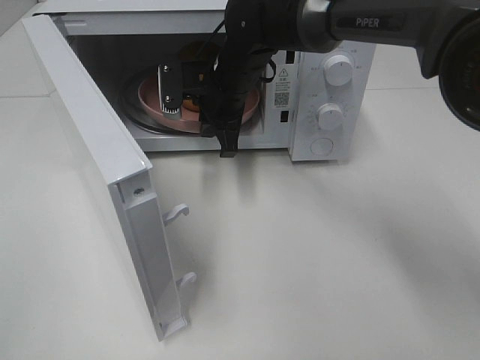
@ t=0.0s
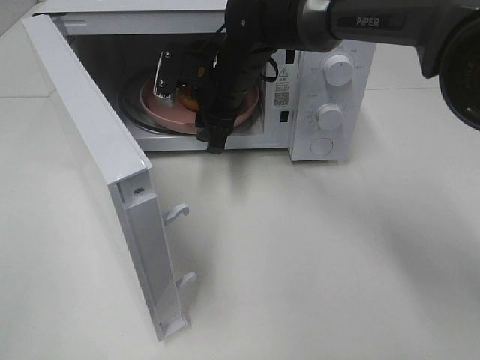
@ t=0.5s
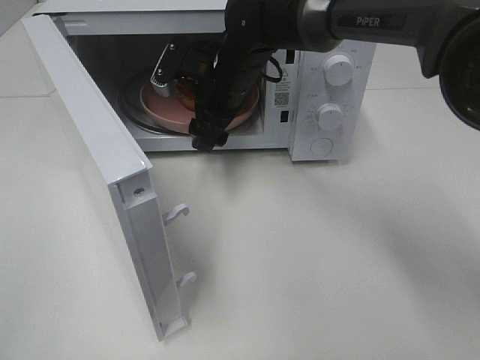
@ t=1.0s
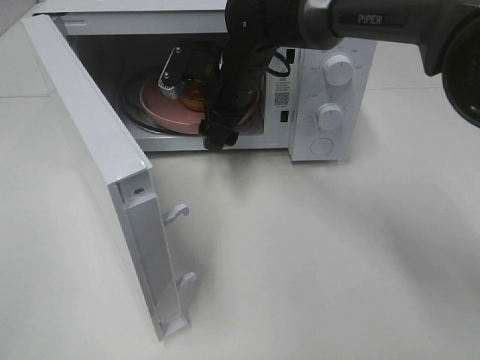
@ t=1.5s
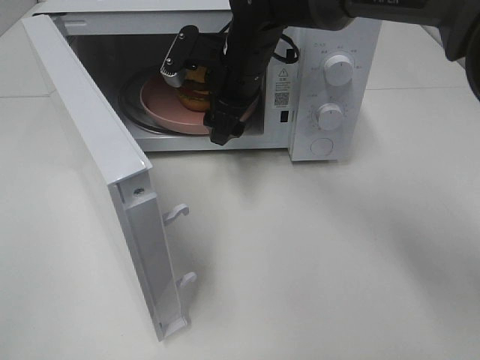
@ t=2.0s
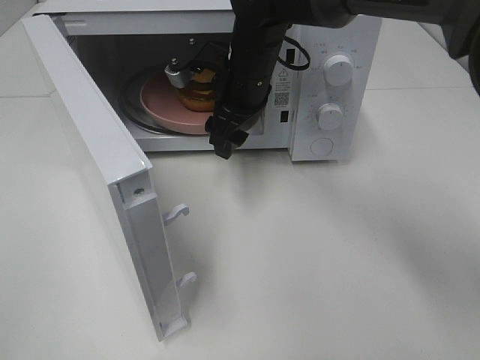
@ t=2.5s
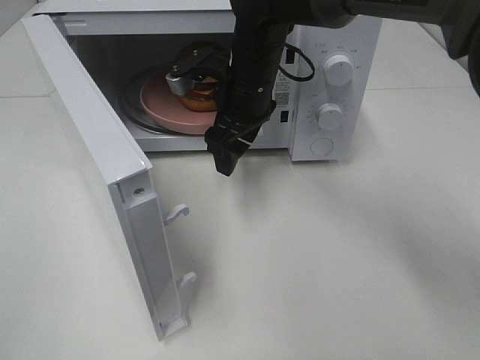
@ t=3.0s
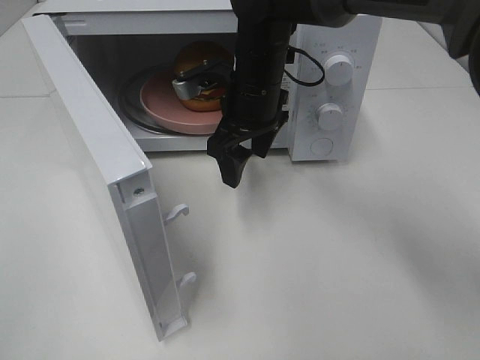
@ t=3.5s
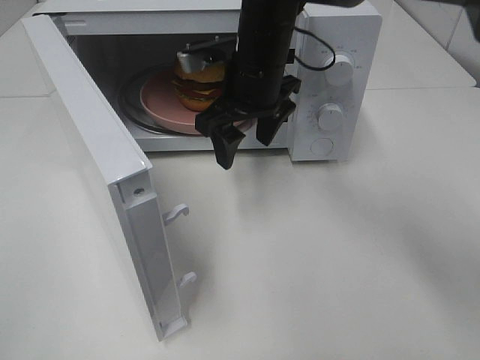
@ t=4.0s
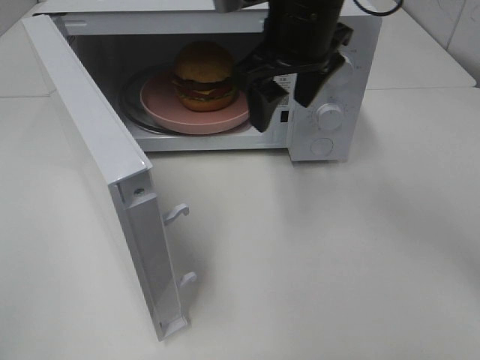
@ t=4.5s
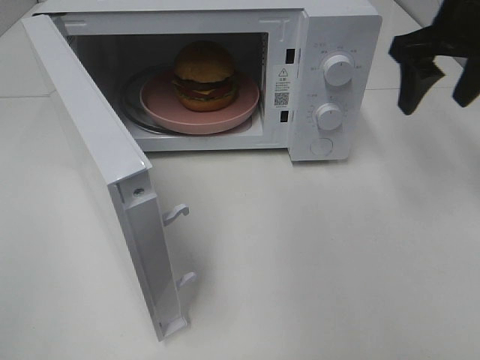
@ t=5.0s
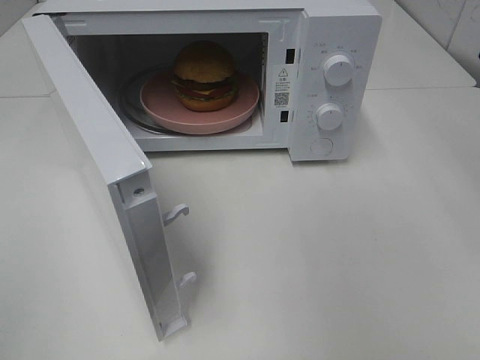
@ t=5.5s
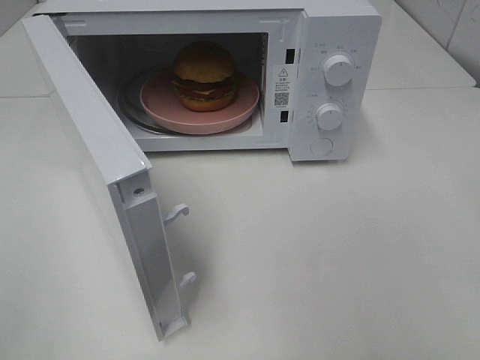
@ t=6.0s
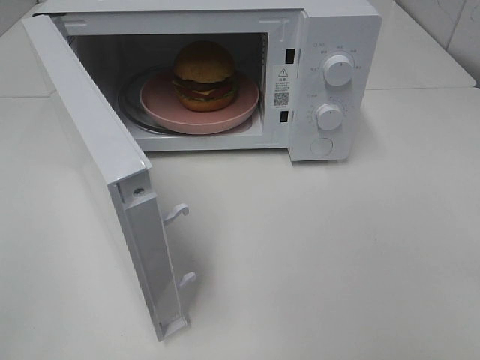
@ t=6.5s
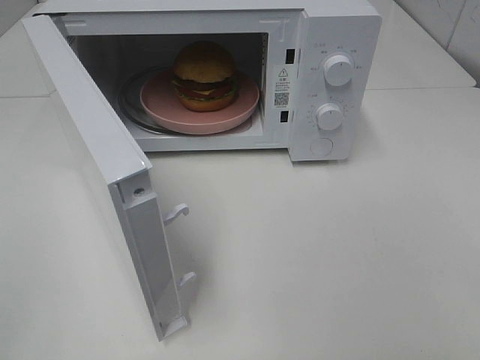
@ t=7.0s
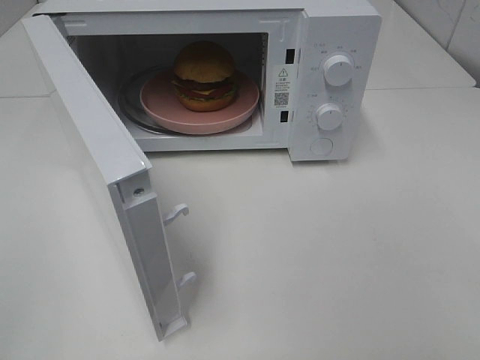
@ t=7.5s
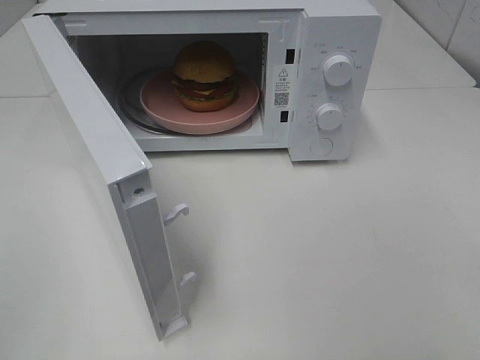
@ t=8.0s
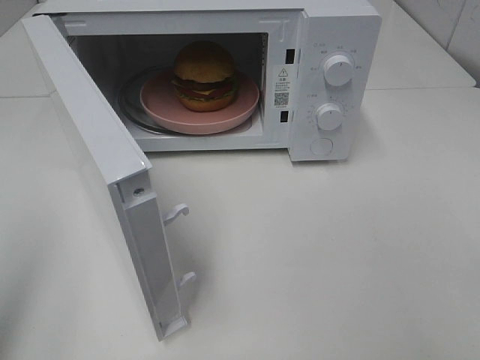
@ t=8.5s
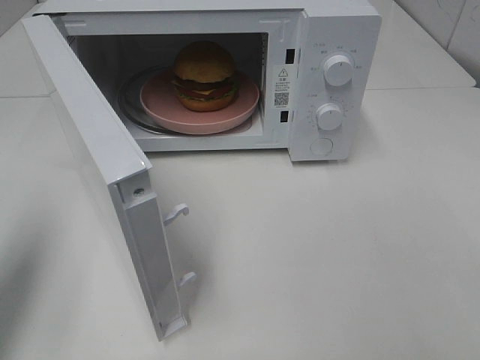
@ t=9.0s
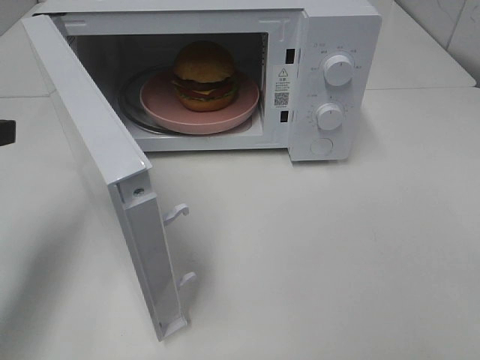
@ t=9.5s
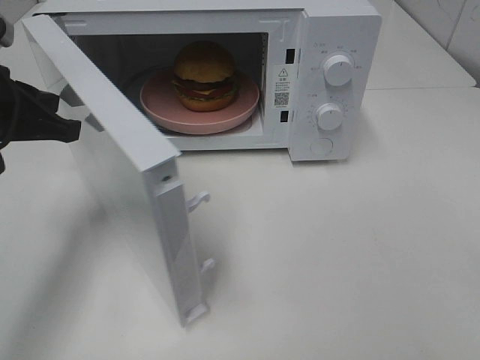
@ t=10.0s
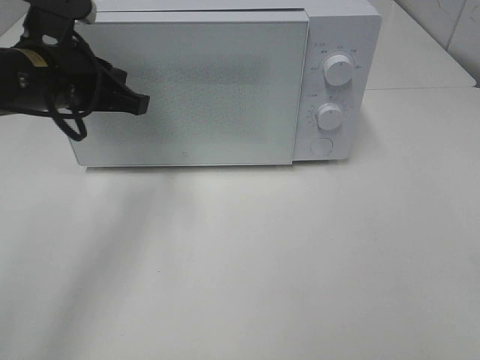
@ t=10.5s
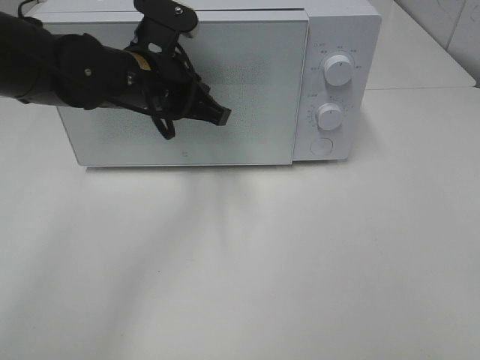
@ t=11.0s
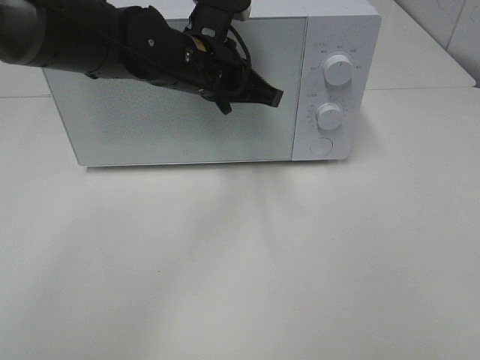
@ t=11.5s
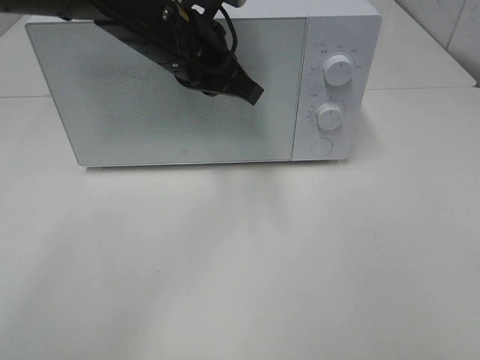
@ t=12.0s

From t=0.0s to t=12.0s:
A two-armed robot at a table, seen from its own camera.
Task of the whole recording: Heat the burger.
Step, from t=0.5s to t=11.5s: Left hand: close the microwave door.
From t=0.0s to t=2.0s: The right gripper opens its fingers.
From t=4.0s to t=6.0s: The right gripper goes some 35 cm to the right and backward.
From t=8.0s to t=10.0s: The left gripper is displaced forward by about 30 cm.
From t=10.0s to t=12.0s: The left gripper goes some 20 cm to the right and forward.

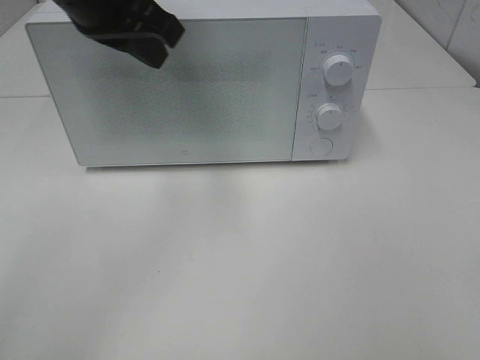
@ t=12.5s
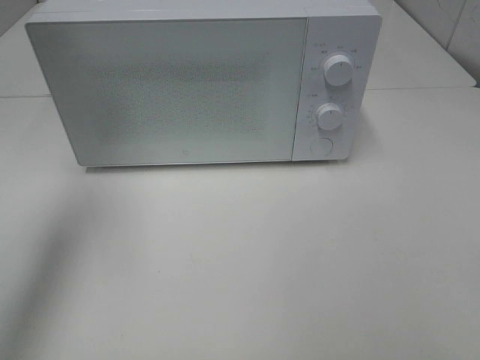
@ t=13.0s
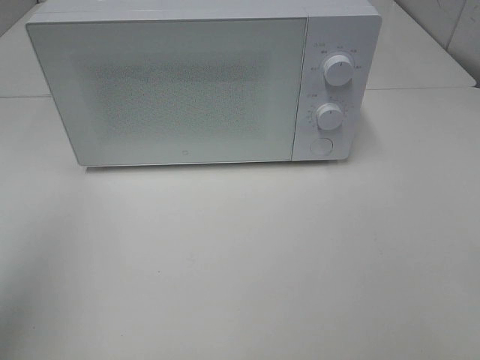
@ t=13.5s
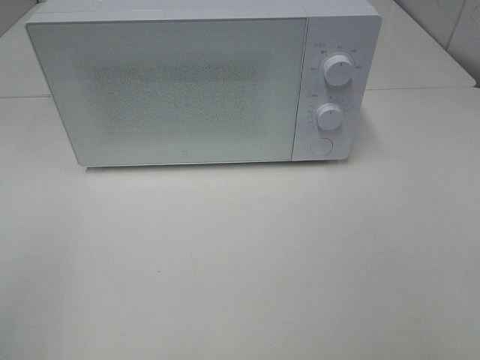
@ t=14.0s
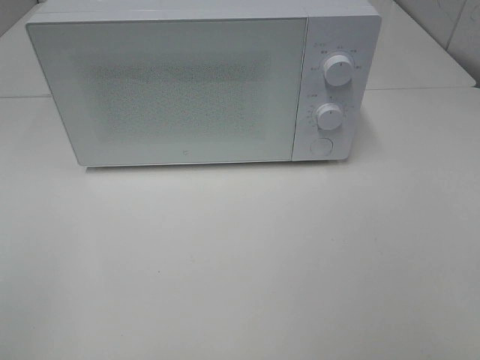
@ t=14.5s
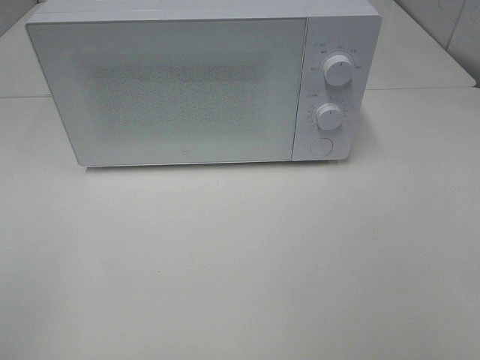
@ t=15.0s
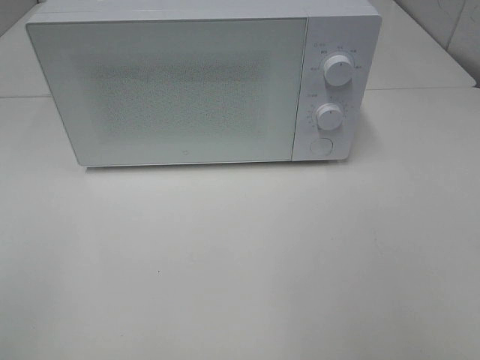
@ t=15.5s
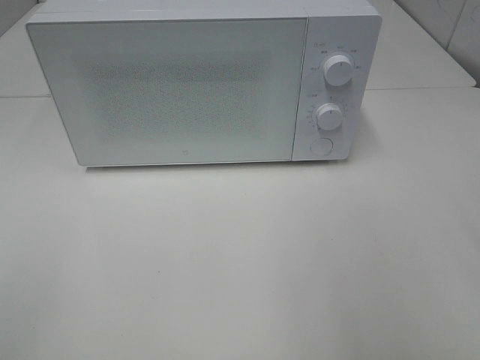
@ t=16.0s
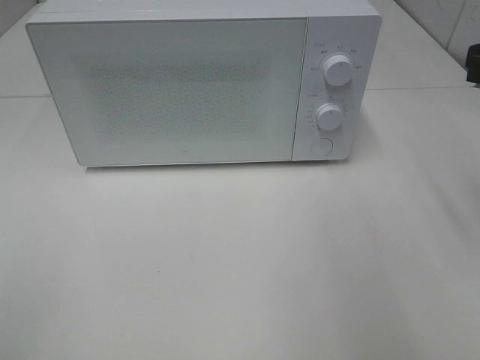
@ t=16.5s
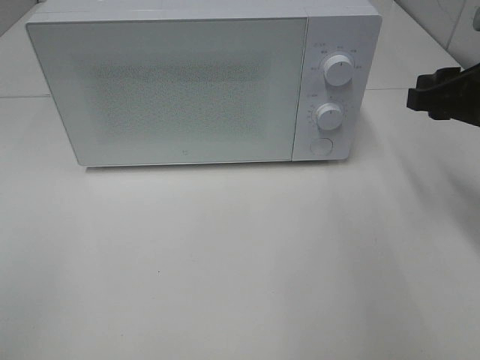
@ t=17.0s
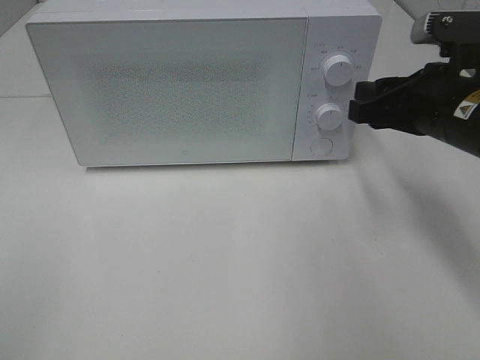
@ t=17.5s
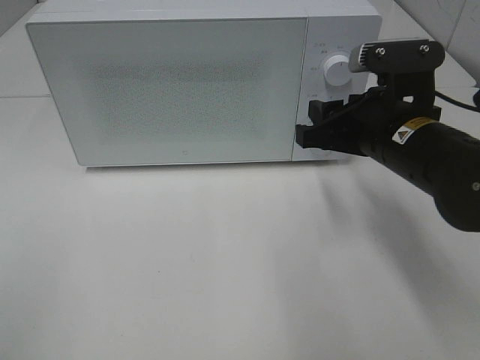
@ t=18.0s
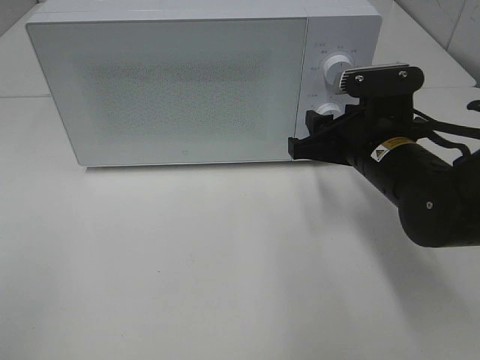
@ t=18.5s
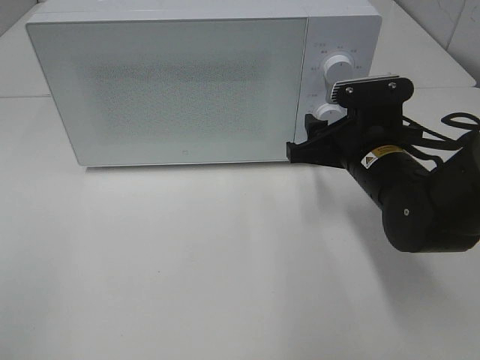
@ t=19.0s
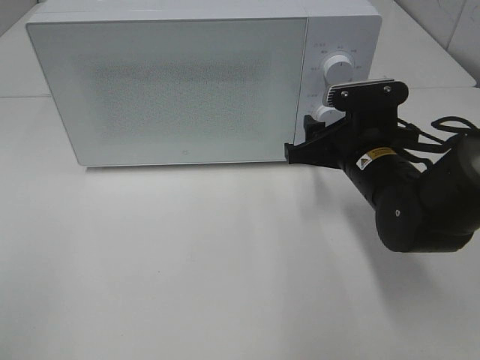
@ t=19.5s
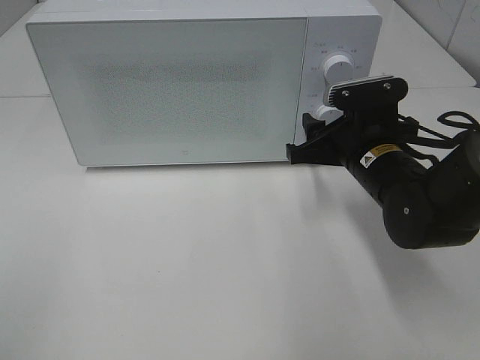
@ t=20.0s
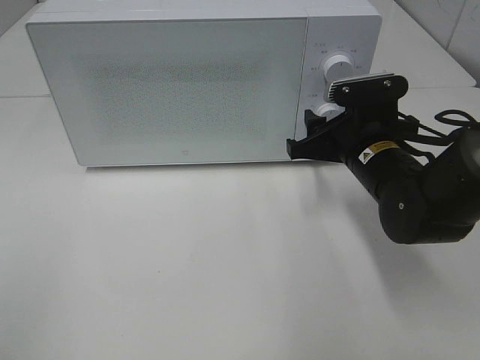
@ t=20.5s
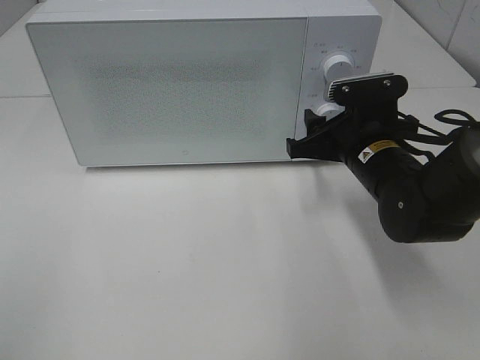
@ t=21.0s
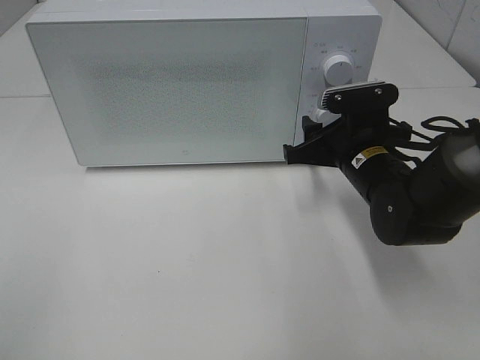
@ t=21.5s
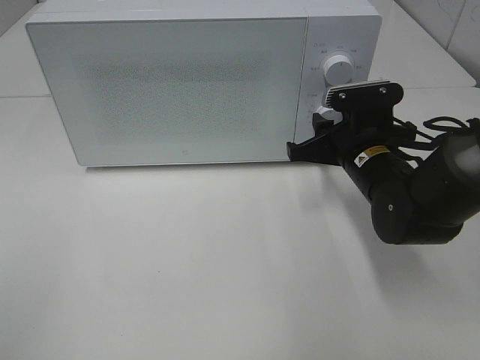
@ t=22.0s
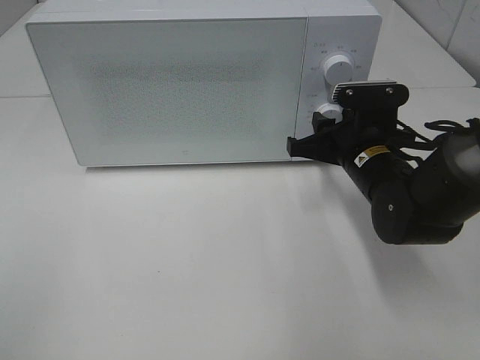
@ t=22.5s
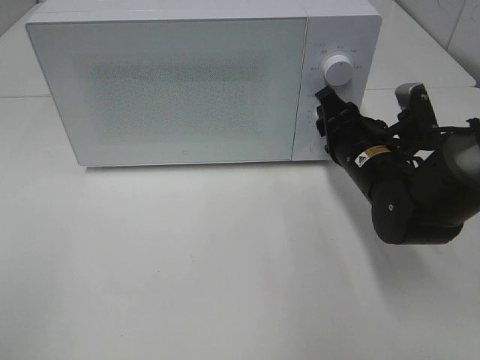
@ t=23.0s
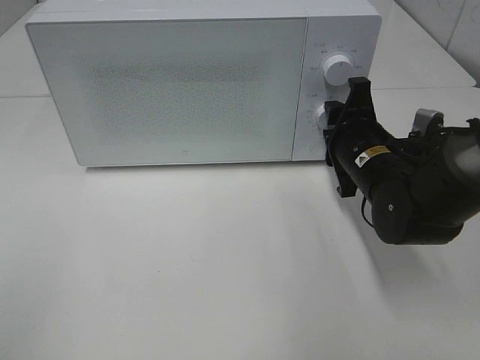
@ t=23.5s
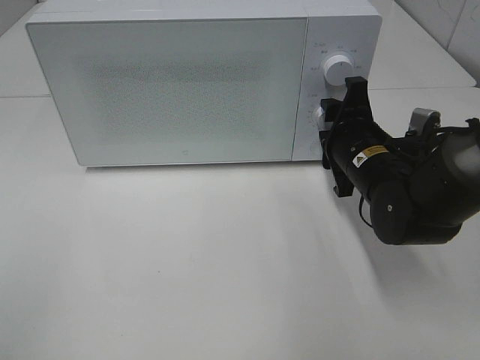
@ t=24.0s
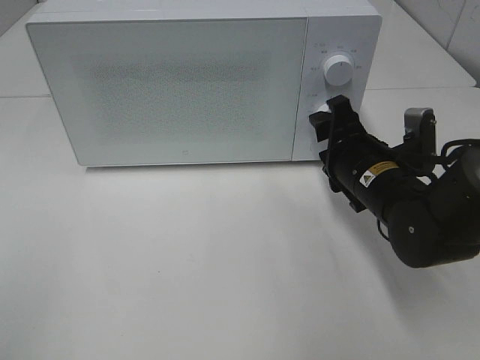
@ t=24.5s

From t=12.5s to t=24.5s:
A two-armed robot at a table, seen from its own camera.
Task of the whole recording: Heat the burger.
Step, from t=12.5s to t=24.0s: Right hand: twist timer button.
From t=12.5s to t=14.5s: The left gripper moves backward and to the left, some 40 cm.
From t=16.5s to t=18.5s: The right gripper travels downward, to the left and forward by approximately 20 cm.
From t=18.5s to t=22.5s: There are only small adjustments of the grippers.

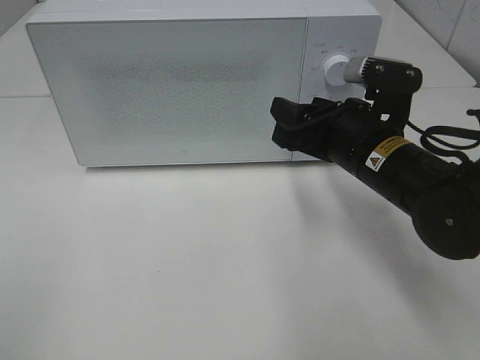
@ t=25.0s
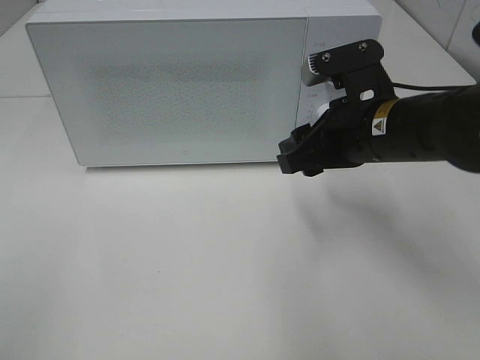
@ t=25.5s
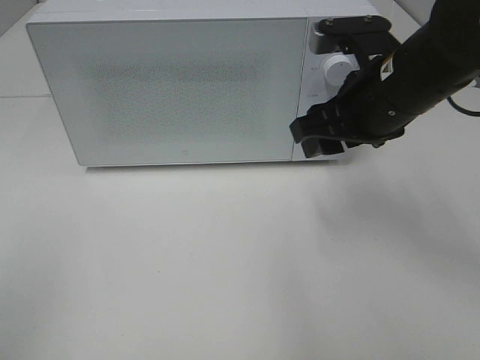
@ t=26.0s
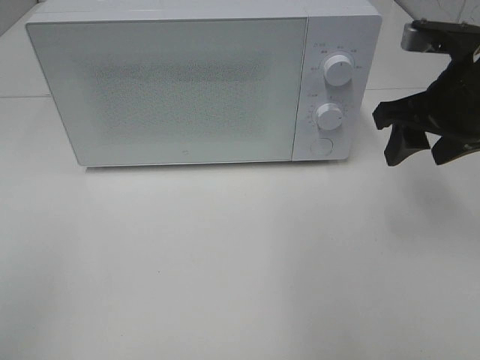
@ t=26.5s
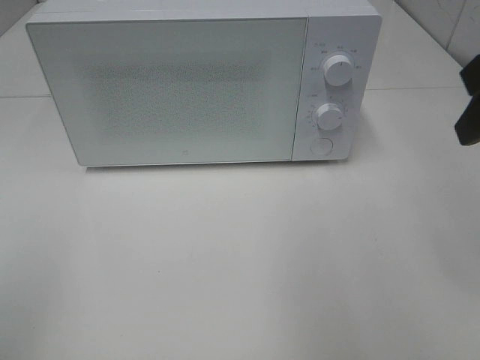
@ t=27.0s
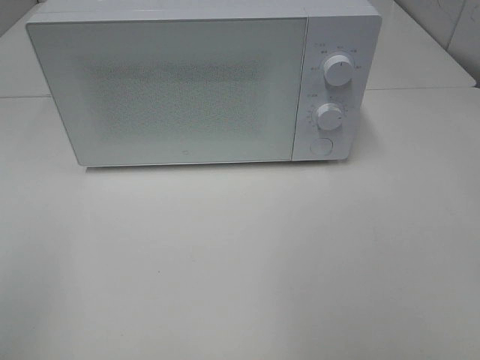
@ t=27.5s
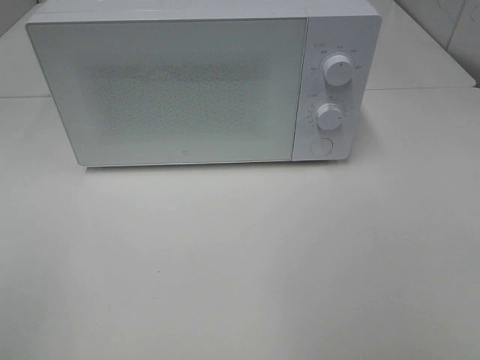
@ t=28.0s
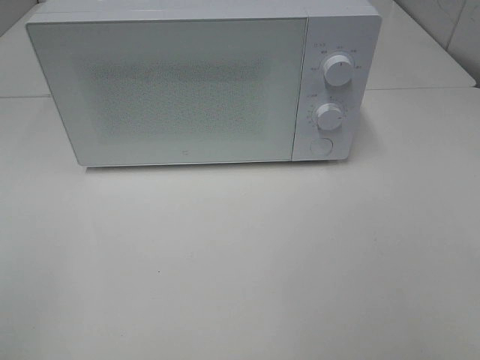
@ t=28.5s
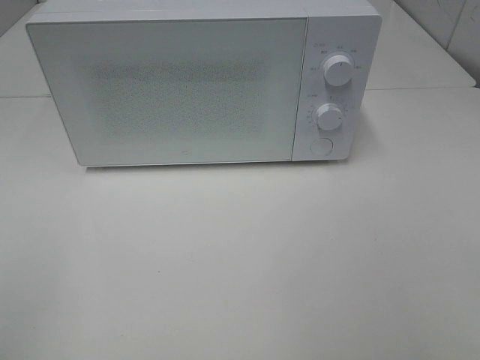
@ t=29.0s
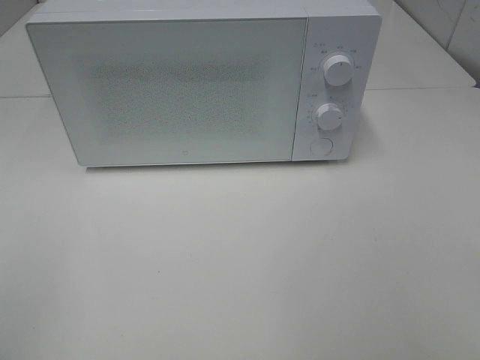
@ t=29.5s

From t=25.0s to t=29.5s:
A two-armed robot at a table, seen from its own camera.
Task of the whole recording: Heat the burger.
From t=25.0s to t=27.0s: The right gripper goes some 20 cm upward and to the right.
From t=27.0s to t=29.5s: The right gripper is displaced backward by approximately 20 cm.
